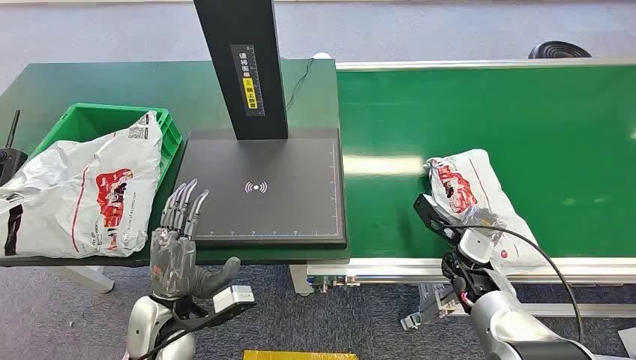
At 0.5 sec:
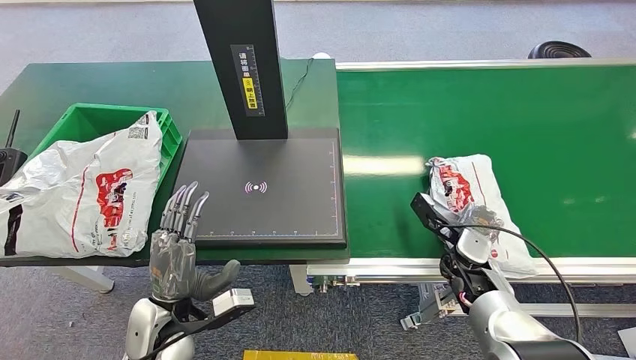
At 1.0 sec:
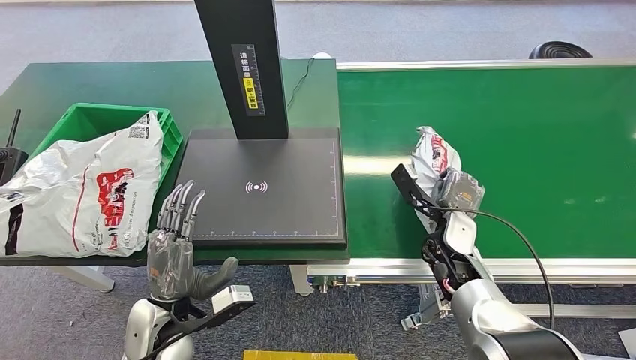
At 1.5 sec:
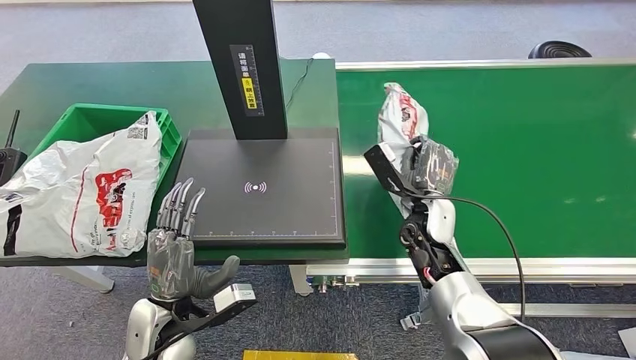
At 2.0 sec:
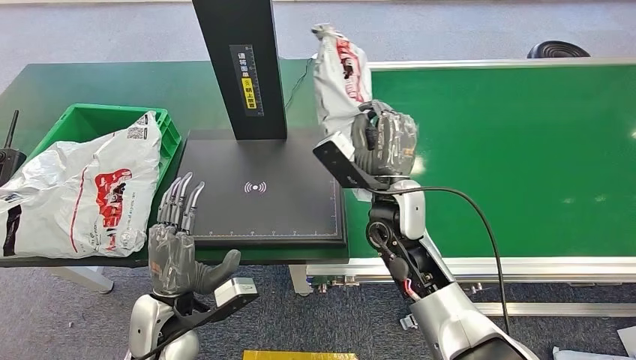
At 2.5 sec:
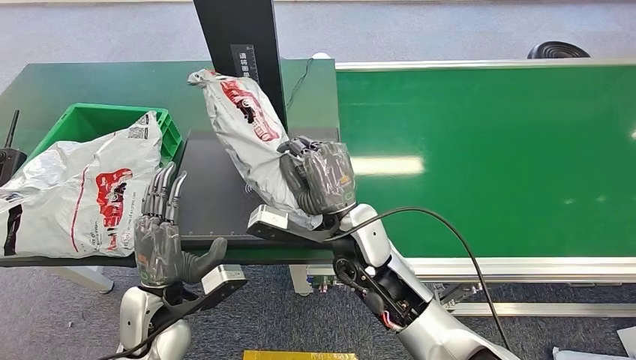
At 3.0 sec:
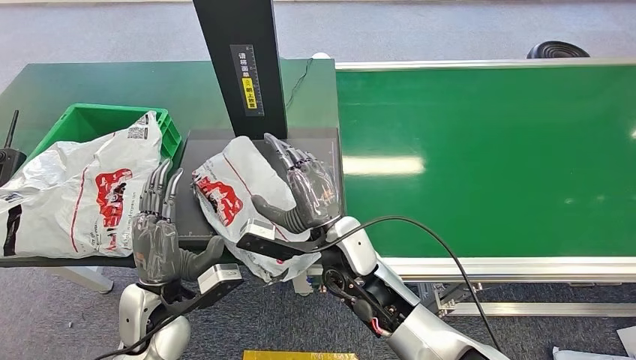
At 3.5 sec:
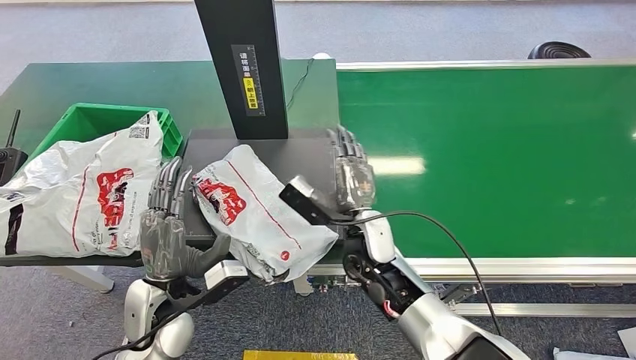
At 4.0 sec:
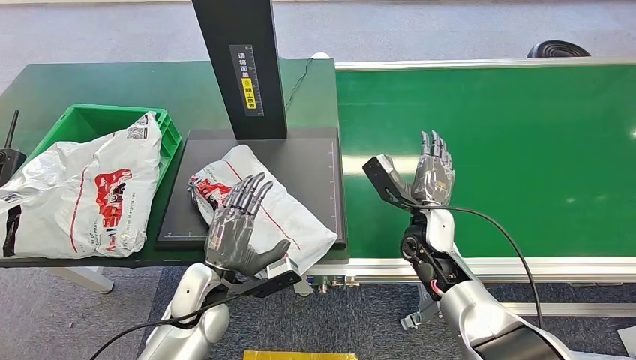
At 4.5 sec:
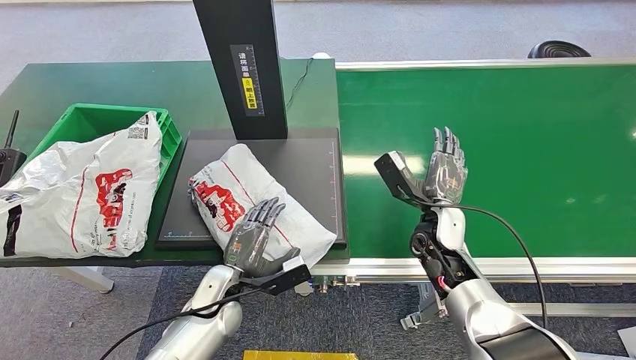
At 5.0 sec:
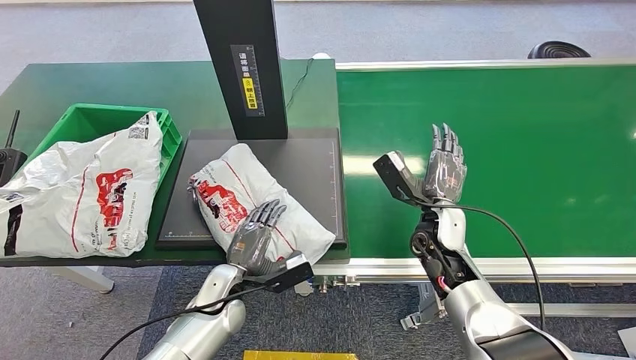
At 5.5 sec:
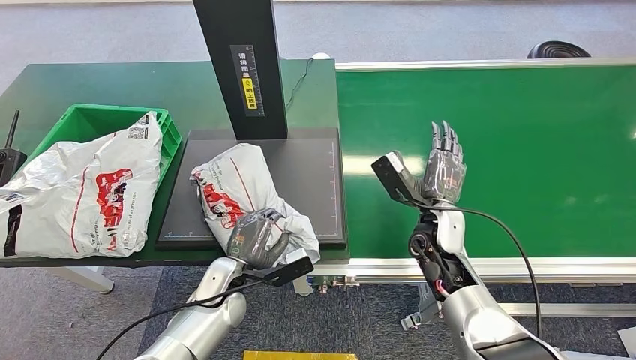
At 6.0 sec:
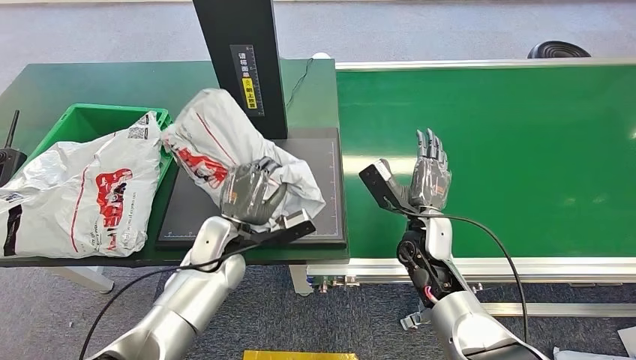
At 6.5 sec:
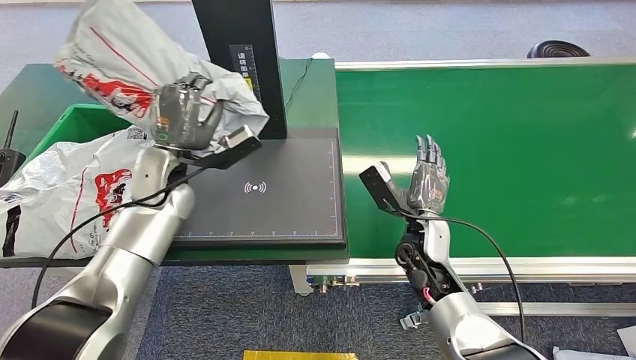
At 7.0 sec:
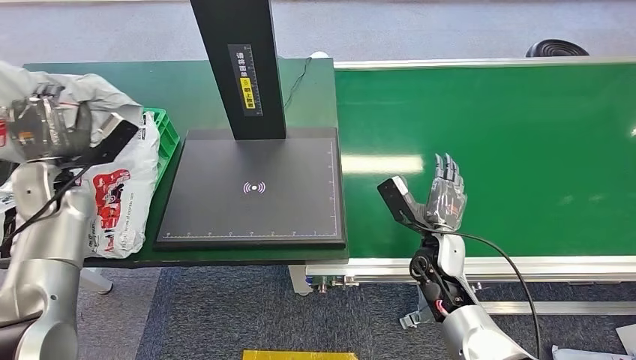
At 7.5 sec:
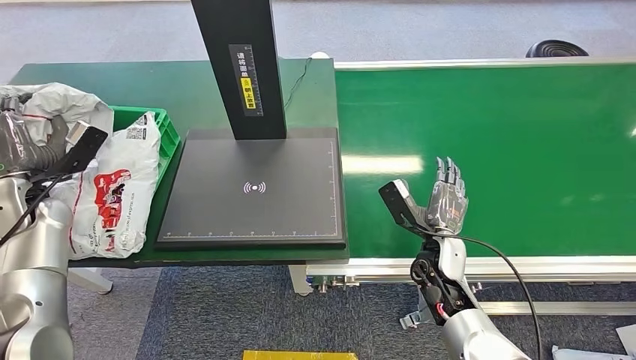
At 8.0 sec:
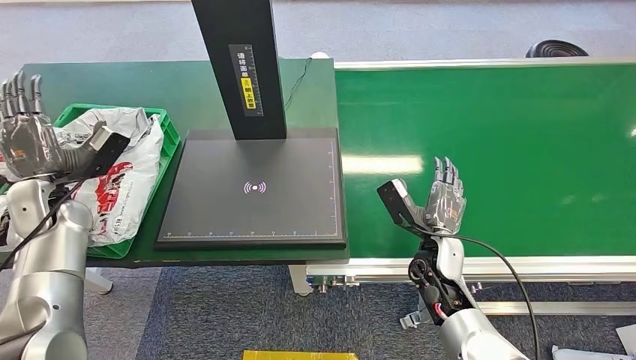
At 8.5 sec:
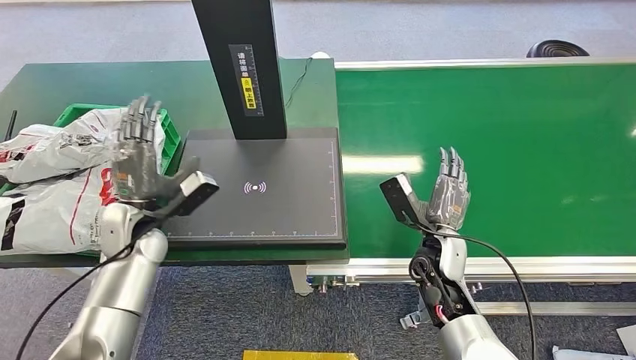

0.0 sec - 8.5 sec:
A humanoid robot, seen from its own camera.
Step, 0.0 sec - 1.5 sec: Pick up the package from the conveyor belt.
Step, 2.0 sec - 3.5 sec: Place the package onto the inbound machine.
Step, 4.0 sec - 6.5 sec: Pick up the package from the inbound machine.
Step, 7.0 sec - 8.5 sec: Place the package into the parcel locker.
